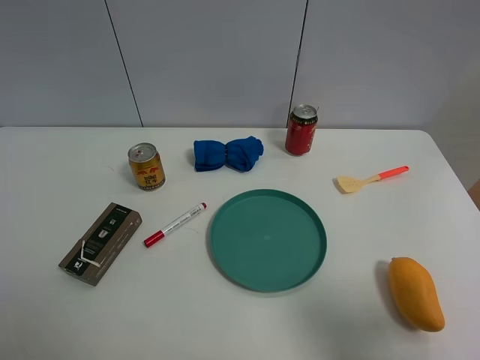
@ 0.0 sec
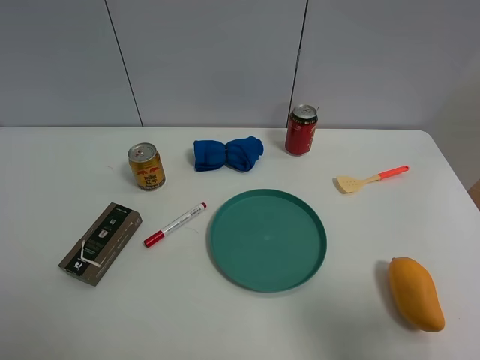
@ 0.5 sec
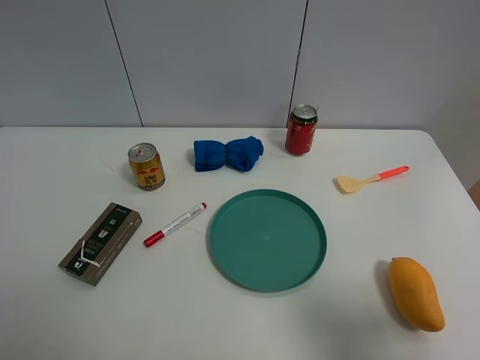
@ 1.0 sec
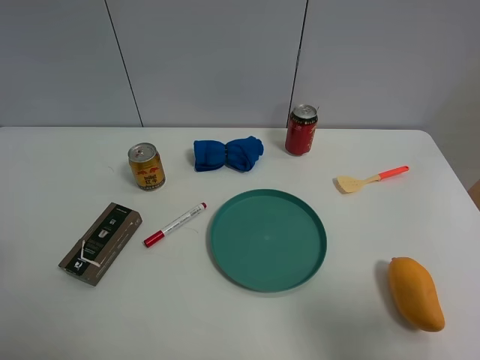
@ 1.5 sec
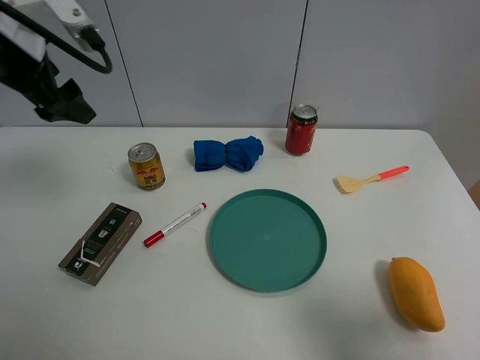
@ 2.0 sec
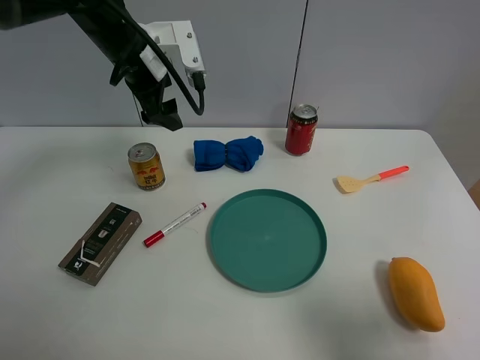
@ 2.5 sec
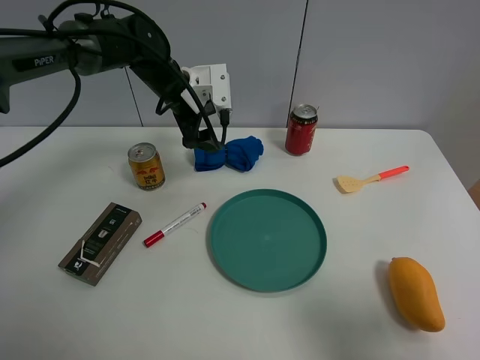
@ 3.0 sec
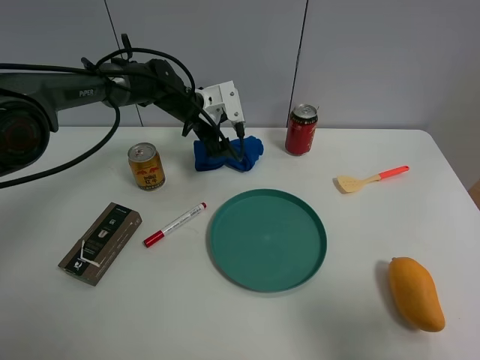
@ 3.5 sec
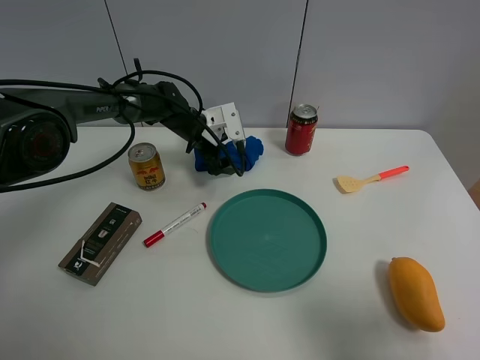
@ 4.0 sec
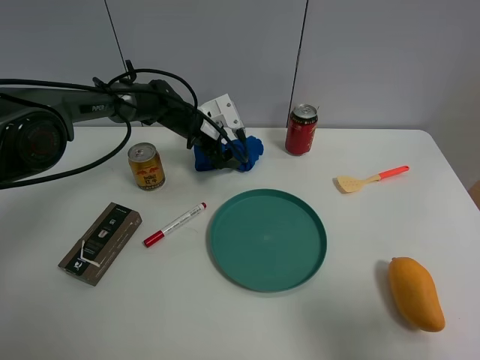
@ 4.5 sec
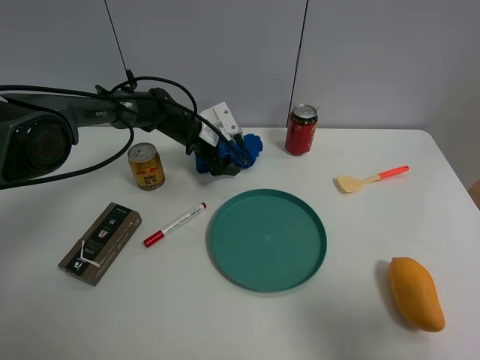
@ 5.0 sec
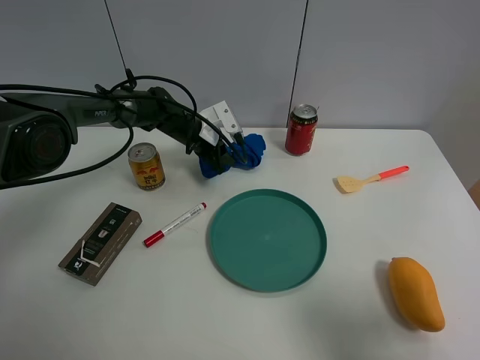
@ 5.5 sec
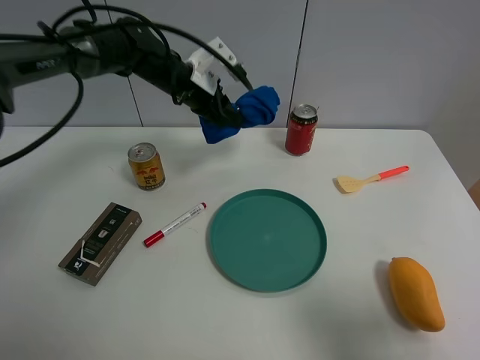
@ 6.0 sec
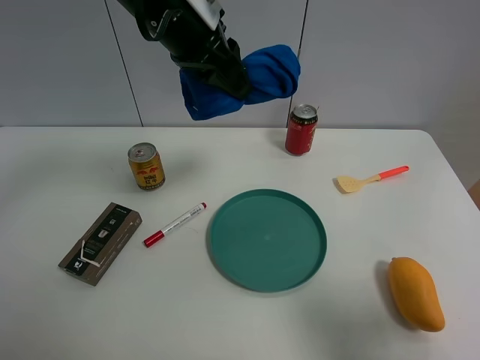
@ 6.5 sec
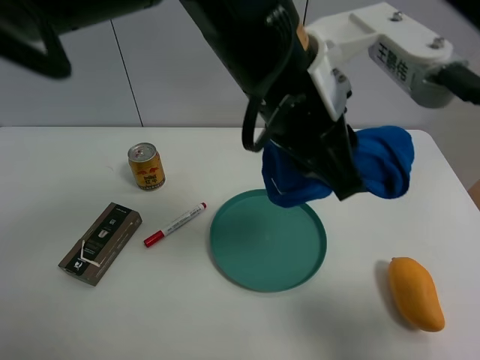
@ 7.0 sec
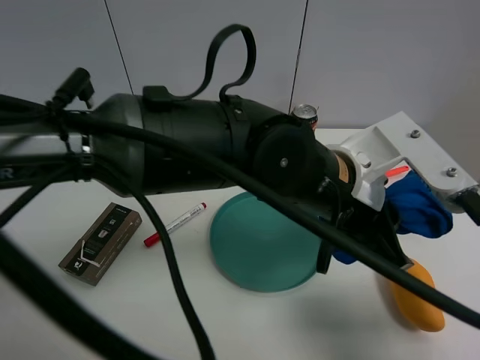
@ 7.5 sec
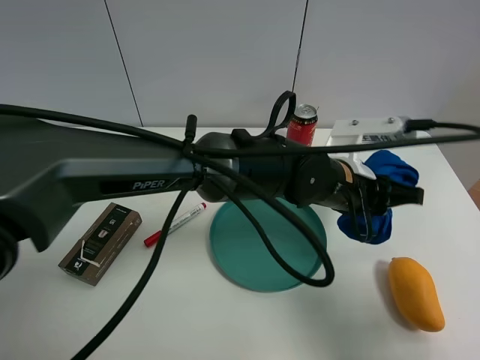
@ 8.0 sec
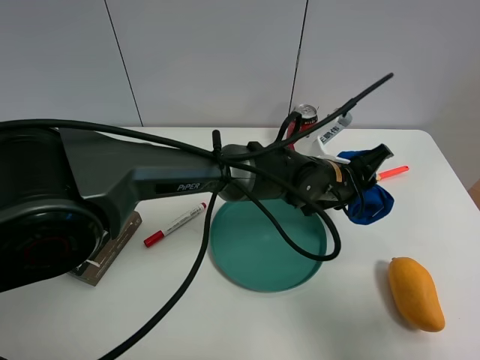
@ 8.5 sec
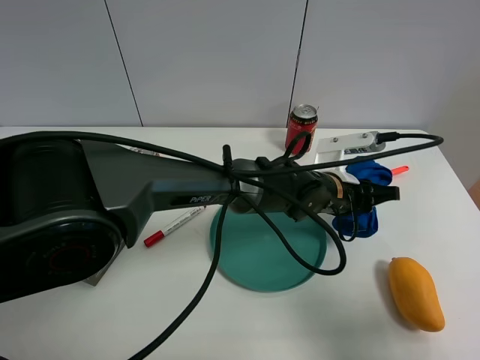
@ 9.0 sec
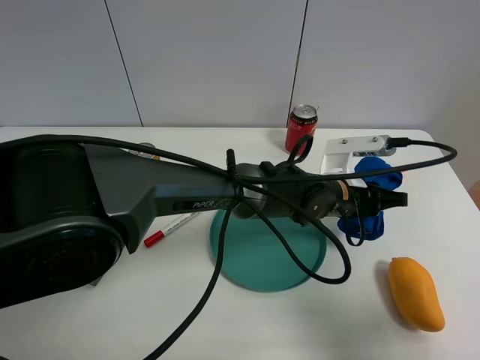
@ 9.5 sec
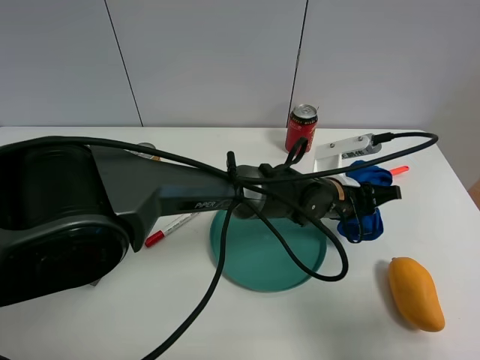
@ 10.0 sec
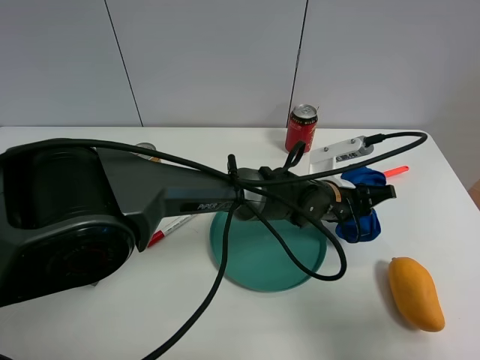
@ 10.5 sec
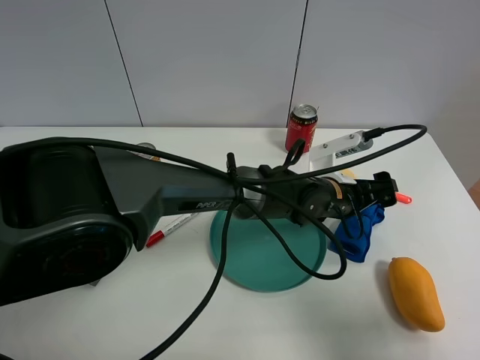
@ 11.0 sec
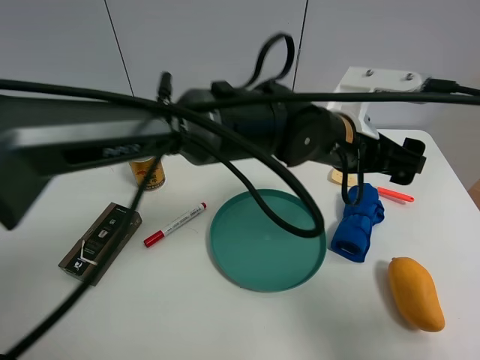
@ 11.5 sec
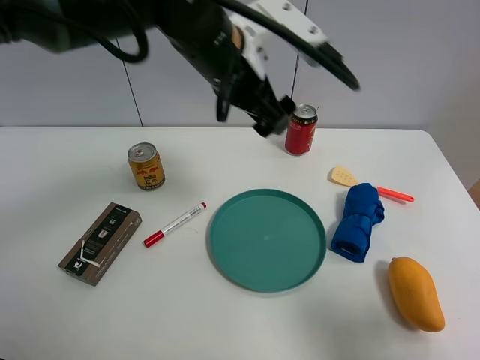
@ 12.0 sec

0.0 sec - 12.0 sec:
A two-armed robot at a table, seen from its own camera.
Task of the whole recording: the gripper move the object.
Step, 0.0 sec - 5.5 sec: Grasp the blue towel with the left gripper.
Step, 6.0 sec - 10.5 sec: Place the blue towel on the table with the left gripper.
0.0 sec - 2.0 sec: The left gripper shifts roughly 30 cm forward.
2.0 sec - 4.0 sec: The left gripper heads downward, forward and to the right, covering roughly 35 cm.
4.0 sec - 6.0 sec: The left gripper heads upward, covering roughly 15 cm, and closes its fingers.
6.0 sec - 8.0 sec: The left gripper goes roughly 30 cm to the right and backward.
8.0 sec - 10.0 sec: The left gripper shifts some 5 cm downward.
10.0 sec - 12.0 sec: The left gripper travels upward and to the left by about 30 cm, and opens.

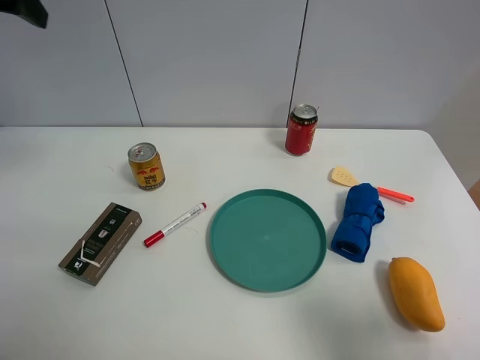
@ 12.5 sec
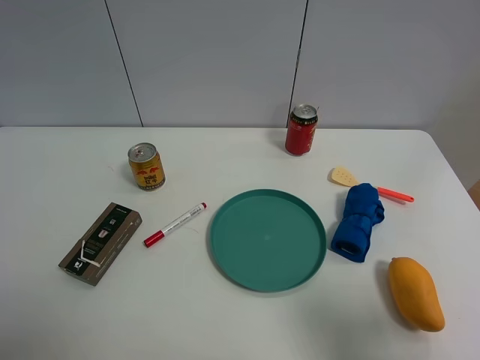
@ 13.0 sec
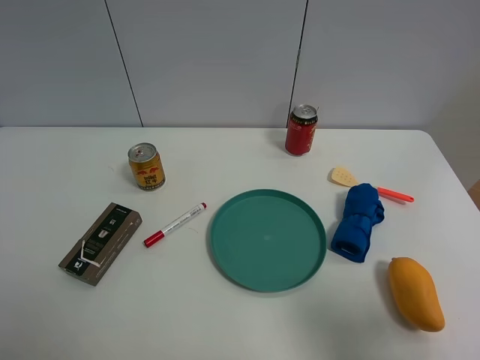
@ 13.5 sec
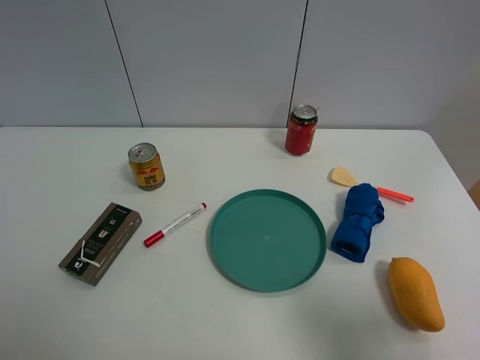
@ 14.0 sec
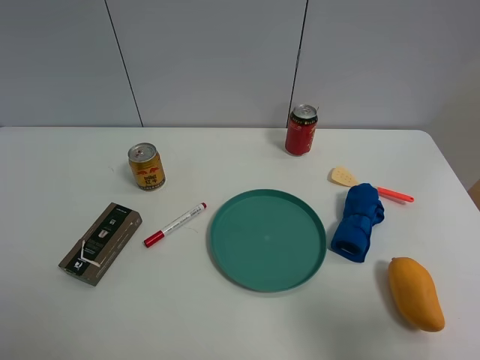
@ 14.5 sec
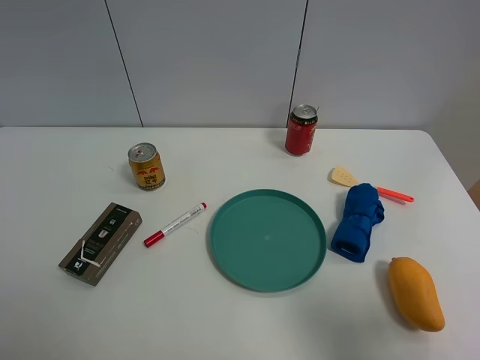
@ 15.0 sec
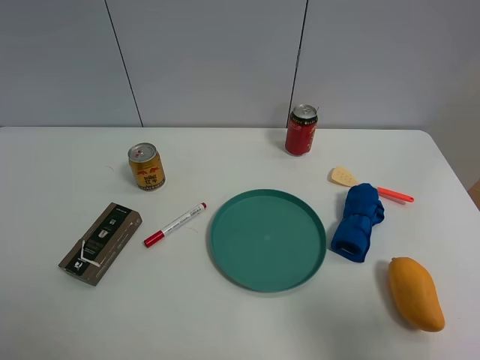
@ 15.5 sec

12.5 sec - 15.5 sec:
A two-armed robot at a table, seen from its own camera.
Task of the whole recording: the gripper move the object.
12.5 sec - 14.0 sec: The left gripper heads backward and downward, covering roughly 35 cm.

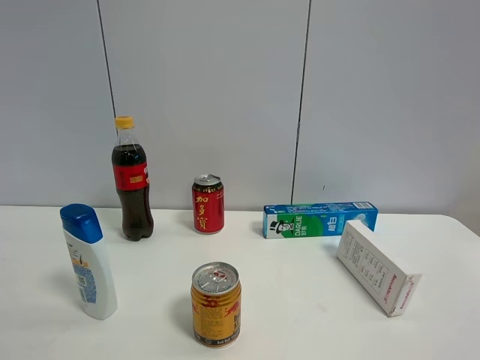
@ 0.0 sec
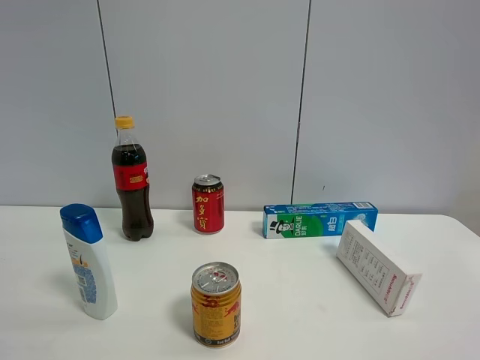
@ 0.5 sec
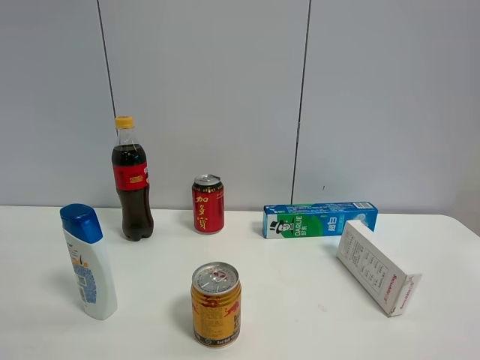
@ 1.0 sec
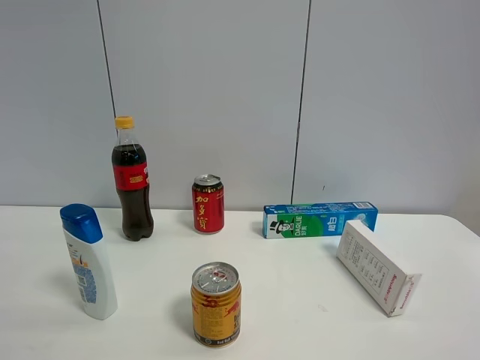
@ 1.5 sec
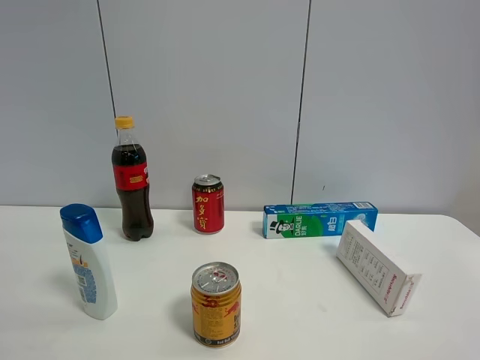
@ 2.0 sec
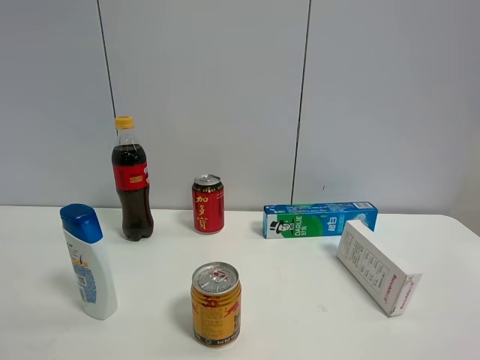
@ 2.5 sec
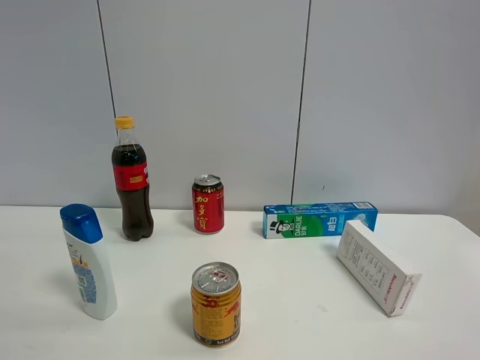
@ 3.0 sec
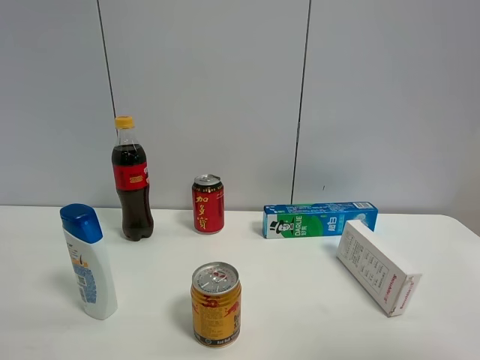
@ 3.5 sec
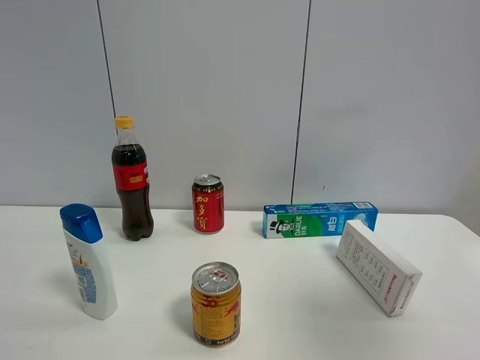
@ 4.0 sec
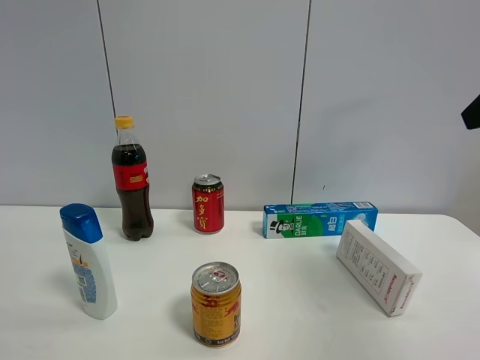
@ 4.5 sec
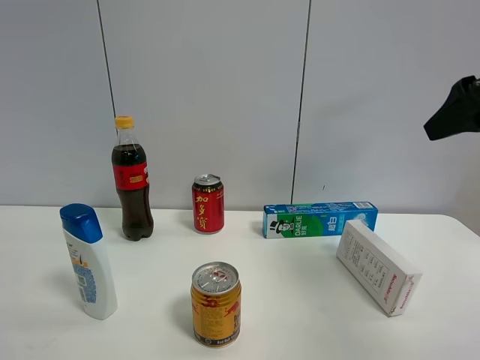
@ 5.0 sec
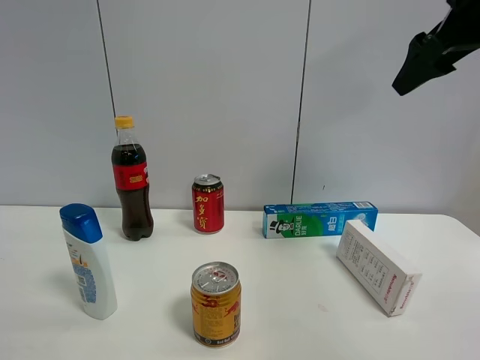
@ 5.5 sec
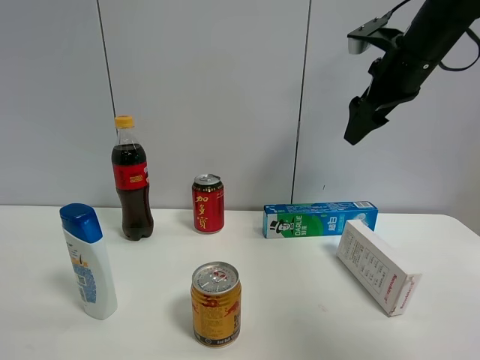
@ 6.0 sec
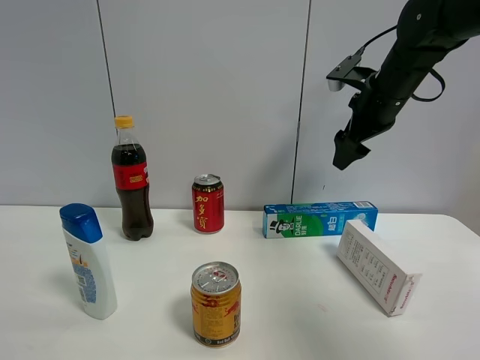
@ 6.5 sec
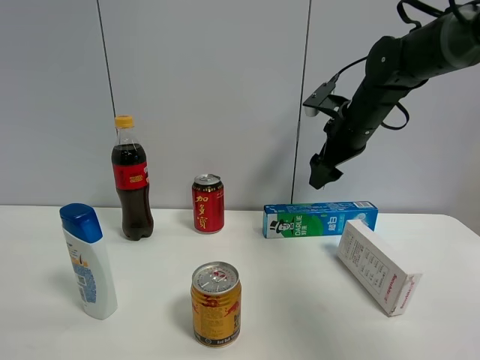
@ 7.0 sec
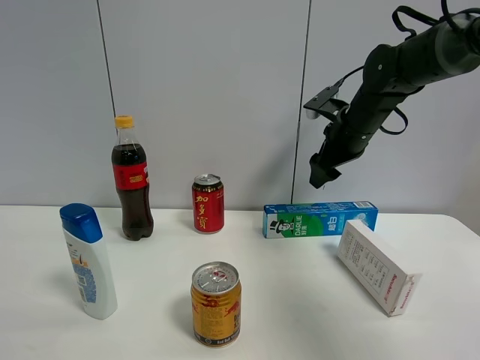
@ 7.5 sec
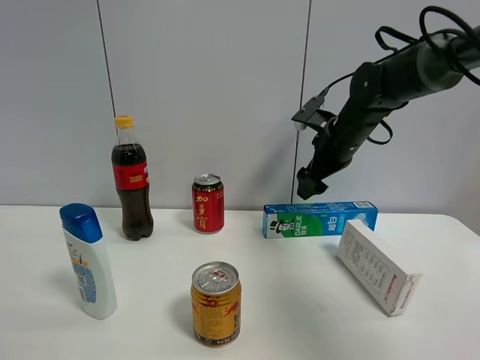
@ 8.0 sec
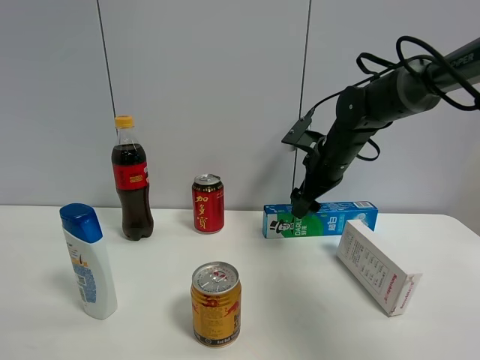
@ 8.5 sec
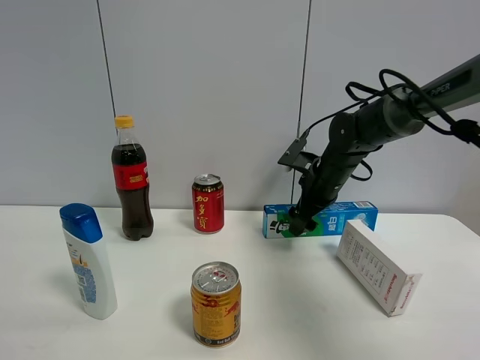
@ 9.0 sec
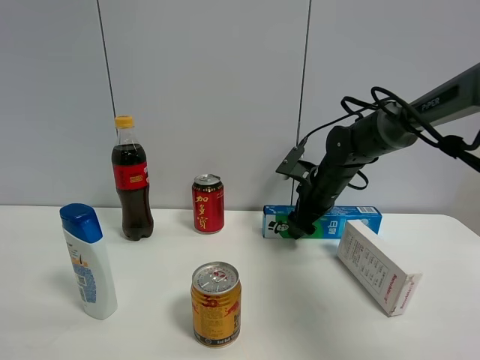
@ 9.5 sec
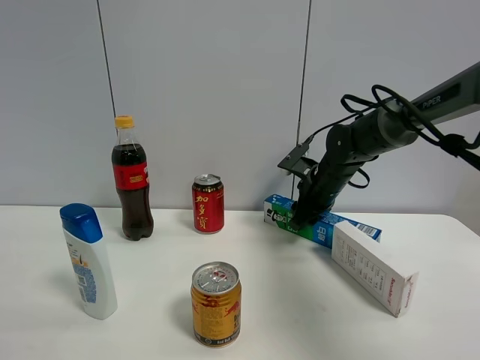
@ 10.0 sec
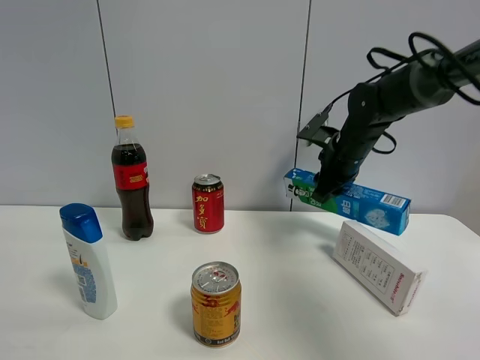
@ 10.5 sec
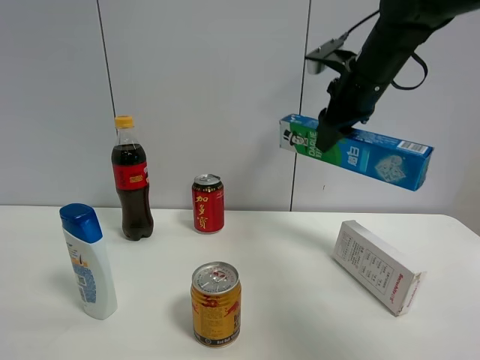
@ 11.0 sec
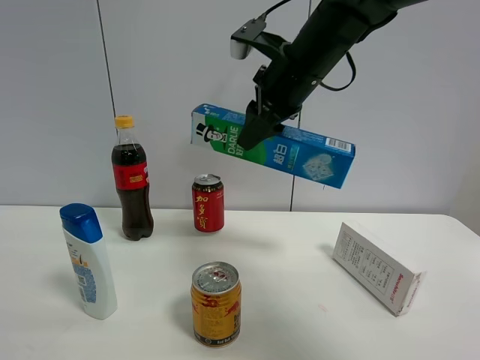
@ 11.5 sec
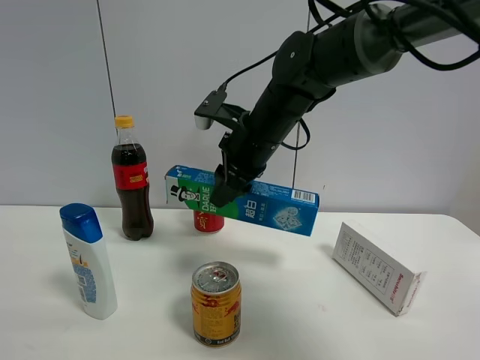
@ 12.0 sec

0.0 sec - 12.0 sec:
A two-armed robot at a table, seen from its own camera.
Task of the whole recording: the gripper move the object.
Step, 0.0 sec - 9.5 sec: Grasp the toothpaste with the right gripper.
0.0 sec - 2.0 sec: Both grippers stay about where they are.
2.0 sec - 4.0 sec: The right gripper heads forward and upward, covering approximately 20 cm.
4.0 sec - 6.0 sec: The right gripper heads forward, covering approximately 25 cm.
6.0 sec - 8.0 sec: The right gripper travels downward, forward and to the left by approximately 15 cm.
8.0 sec - 10.0 sec: The right gripper shifts approximately 10 cm downward, and closes up.
10.0 sec - 12.0 sec: The right gripper moves to the left, upward and backward, about 20 cm.
